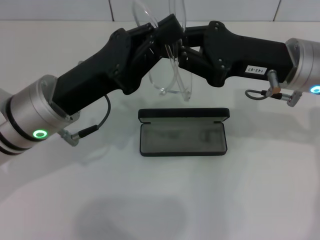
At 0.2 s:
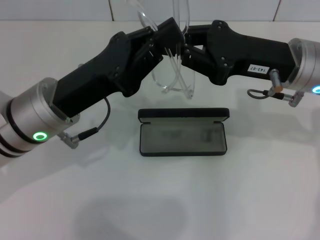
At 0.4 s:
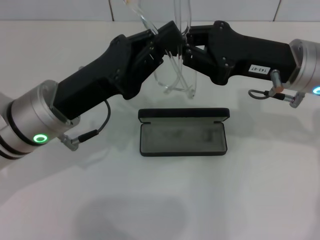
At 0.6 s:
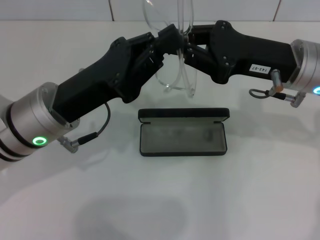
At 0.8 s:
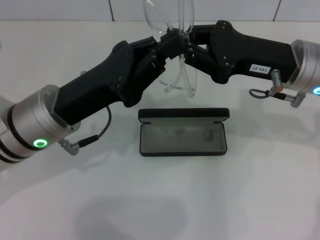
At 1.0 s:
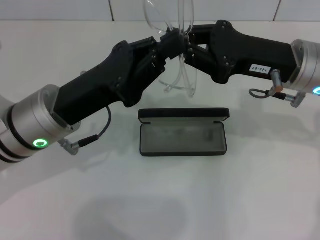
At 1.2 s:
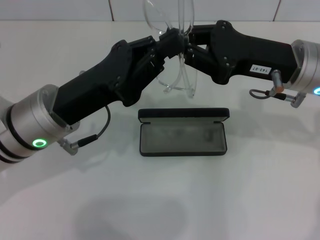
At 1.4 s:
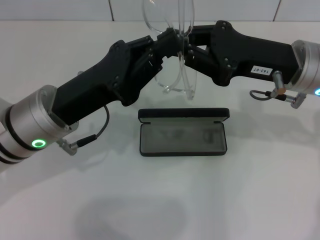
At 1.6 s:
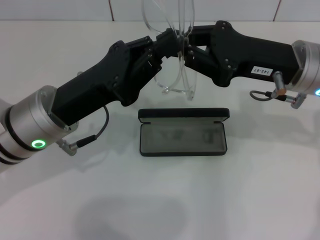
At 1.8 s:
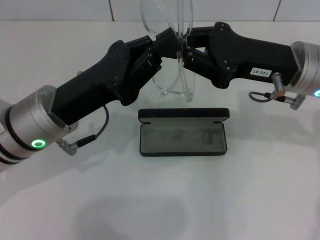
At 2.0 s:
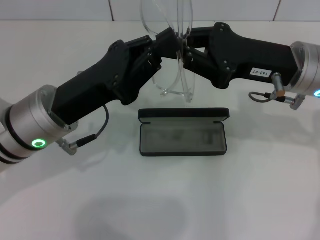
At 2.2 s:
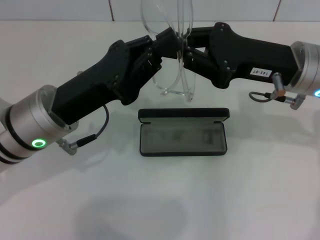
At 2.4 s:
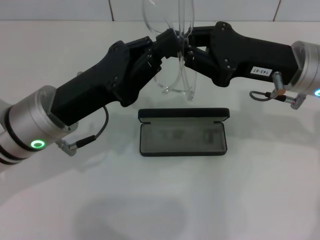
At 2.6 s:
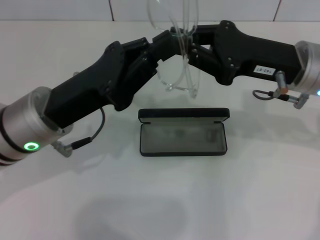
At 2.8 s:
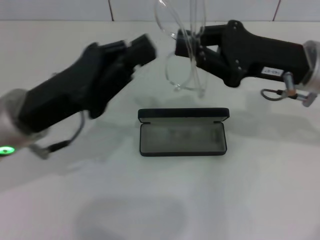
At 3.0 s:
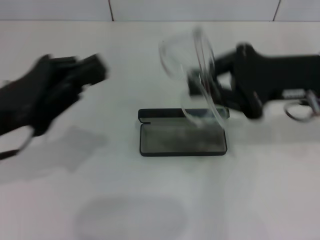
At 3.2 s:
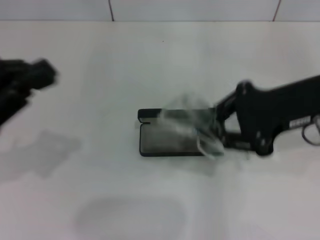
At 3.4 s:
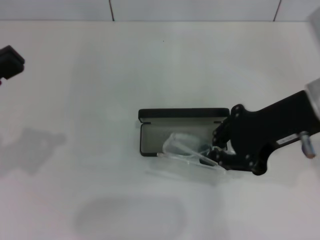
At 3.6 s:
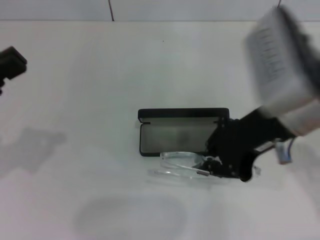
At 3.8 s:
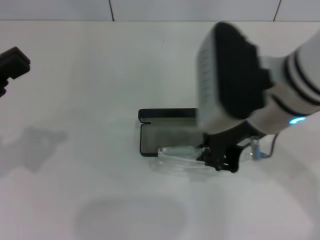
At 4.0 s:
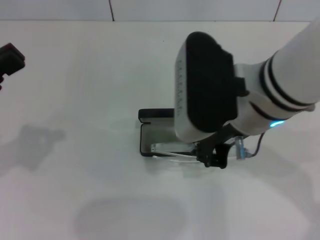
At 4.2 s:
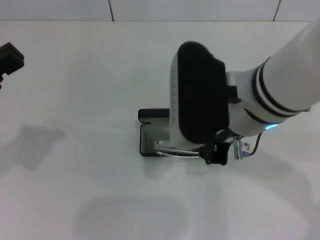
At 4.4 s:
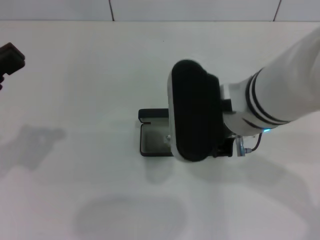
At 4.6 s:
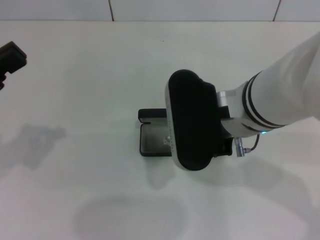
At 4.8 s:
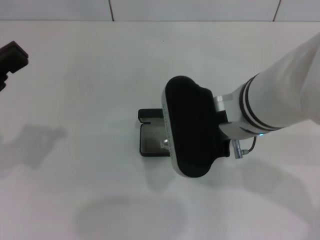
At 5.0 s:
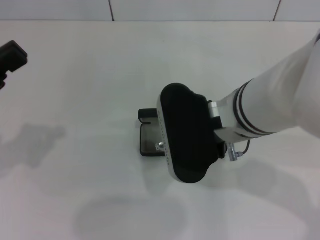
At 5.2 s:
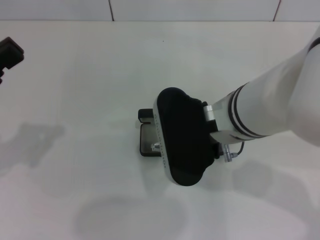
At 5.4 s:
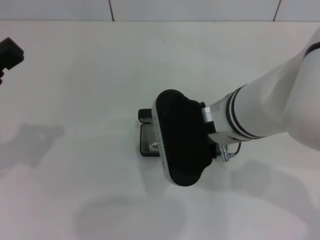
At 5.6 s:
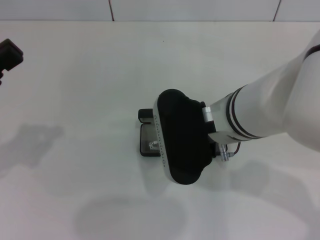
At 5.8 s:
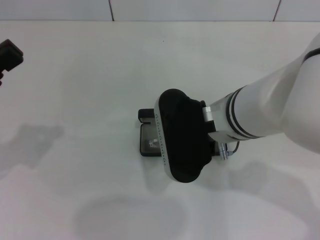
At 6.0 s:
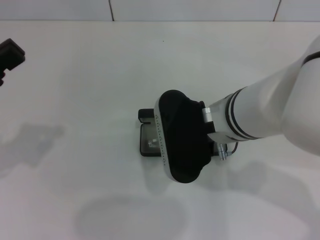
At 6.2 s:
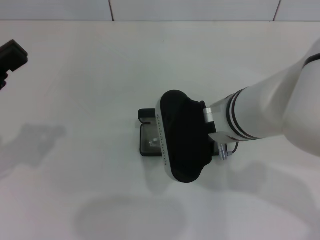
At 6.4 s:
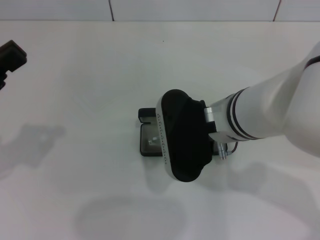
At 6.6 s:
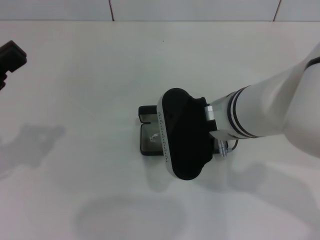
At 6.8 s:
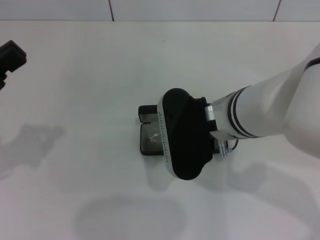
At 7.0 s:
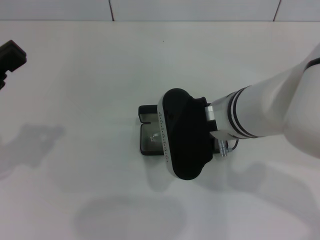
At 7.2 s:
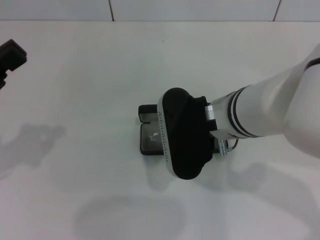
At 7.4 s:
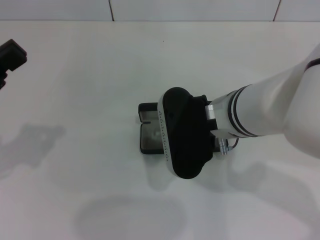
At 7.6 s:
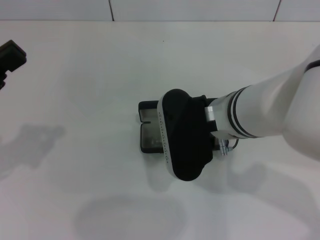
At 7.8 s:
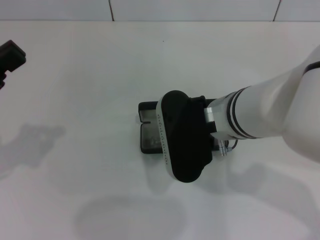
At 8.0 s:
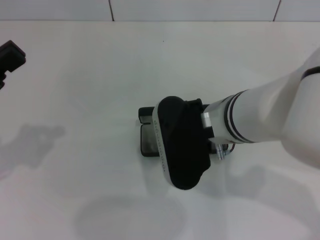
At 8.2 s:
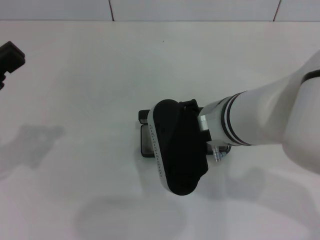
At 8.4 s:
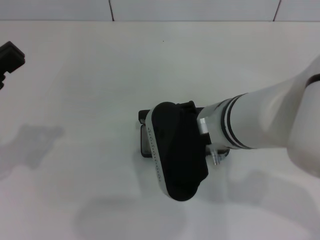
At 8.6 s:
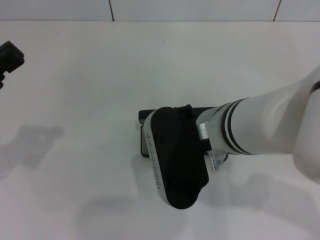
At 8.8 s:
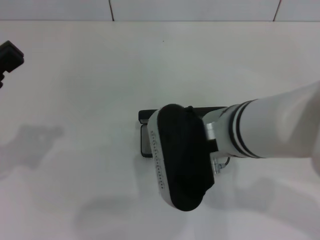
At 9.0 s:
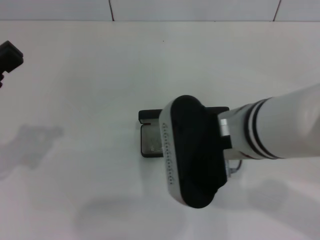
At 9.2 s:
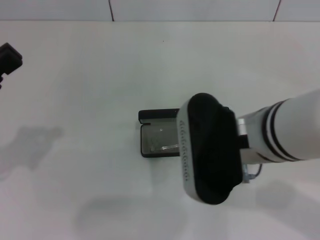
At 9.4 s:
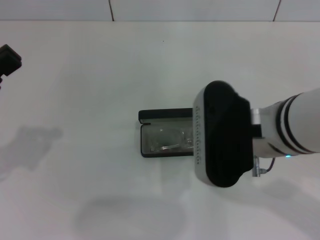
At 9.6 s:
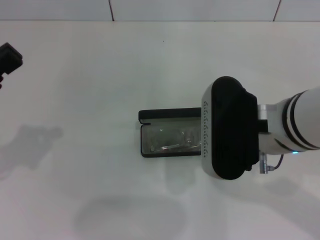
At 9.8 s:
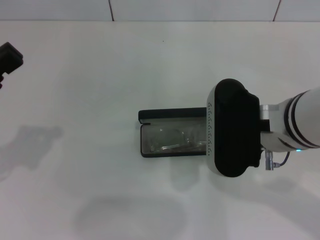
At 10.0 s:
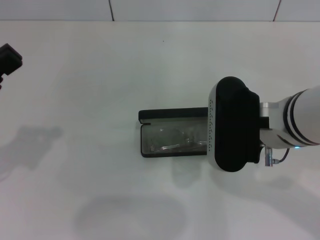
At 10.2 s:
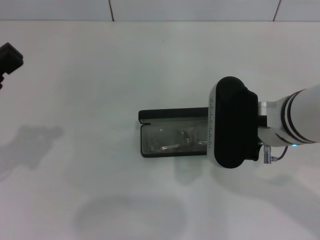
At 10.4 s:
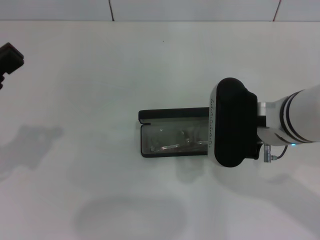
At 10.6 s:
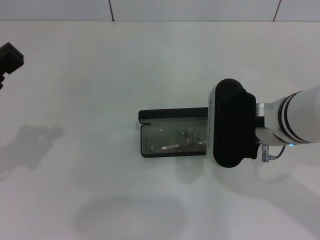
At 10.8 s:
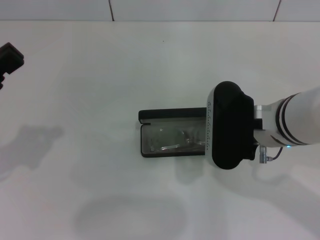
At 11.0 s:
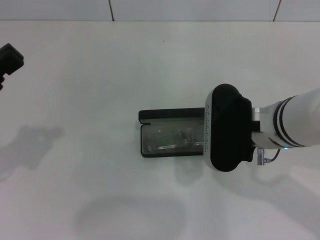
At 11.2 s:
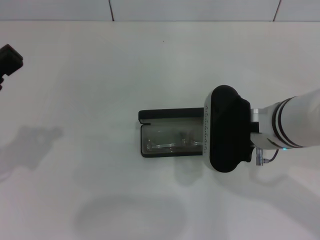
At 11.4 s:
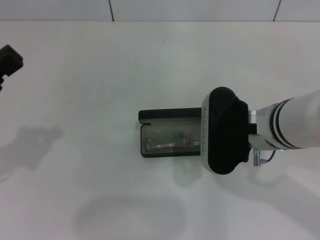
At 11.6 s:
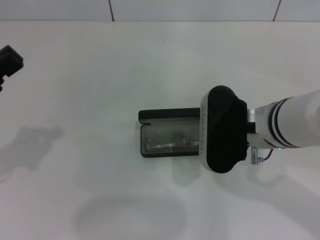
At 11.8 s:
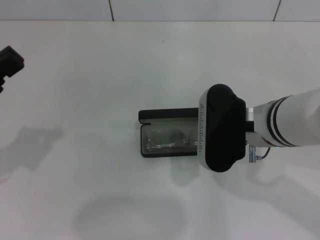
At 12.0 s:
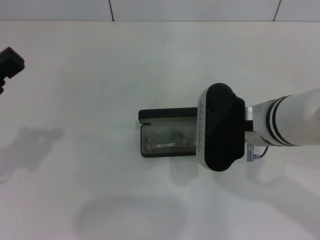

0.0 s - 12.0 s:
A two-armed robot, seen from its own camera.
Step, 0.0 s - 2.4 s: Fold the frame with your left hand.
0.0 s - 1.6 s: The two grippers keep their place.
1.6 s - 3.0 s: The left gripper goes approximately 10 cm to the left.
3.0 s - 4.4 s: The left gripper shifts roughly 5 cm to the left. The right gripper travels to the left by approximately 15 cm.
4.4 s - 6.0 s: There are only small adjustments of the grippers.
6.0 s - 7.6 s: Neither gripper changes place.
7.6 s - 9.0 s: The right gripper changes place by approximately 5 cm.
9.0 s - 10.4 s: The right gripper heads to the right, covering approximately 5 cm, and closes its fingers.
10.4 s - 12.0 s: The grippers stay close to where they were, moving slightly.

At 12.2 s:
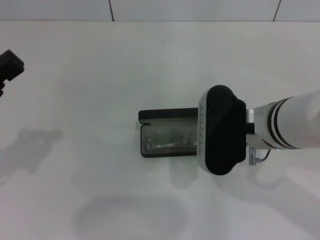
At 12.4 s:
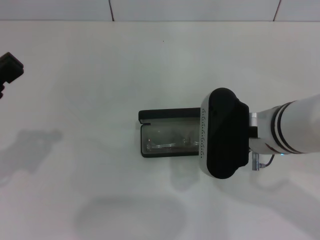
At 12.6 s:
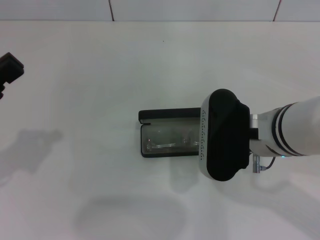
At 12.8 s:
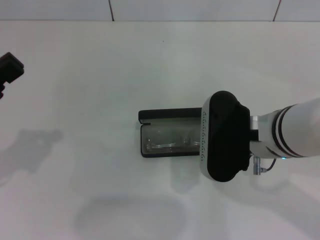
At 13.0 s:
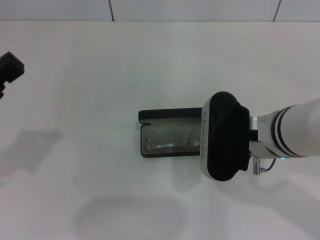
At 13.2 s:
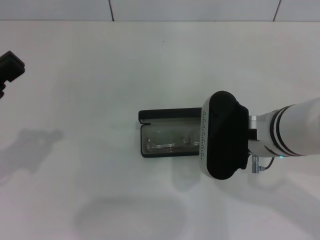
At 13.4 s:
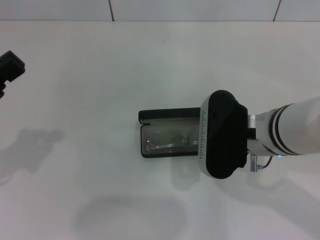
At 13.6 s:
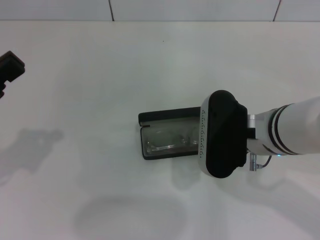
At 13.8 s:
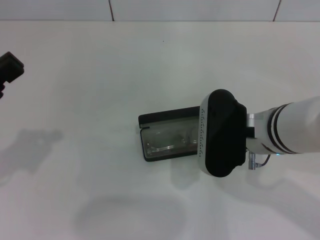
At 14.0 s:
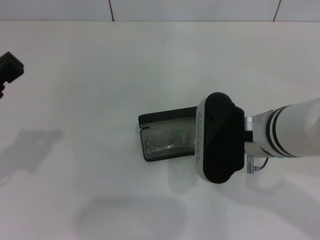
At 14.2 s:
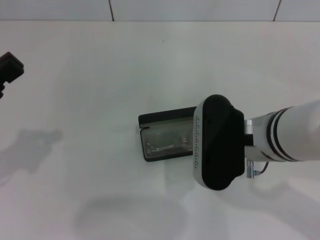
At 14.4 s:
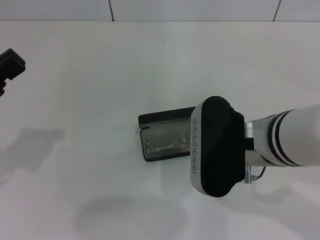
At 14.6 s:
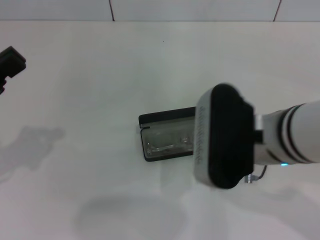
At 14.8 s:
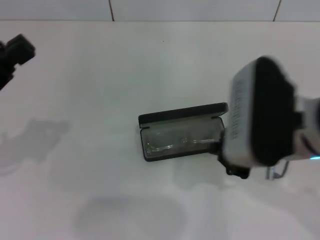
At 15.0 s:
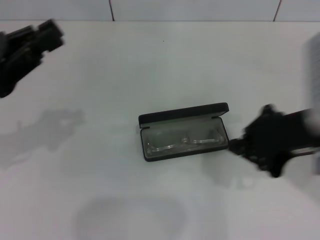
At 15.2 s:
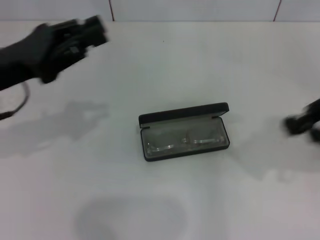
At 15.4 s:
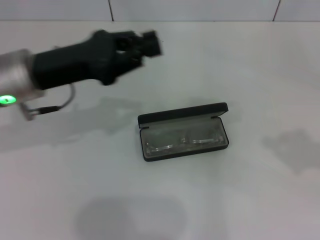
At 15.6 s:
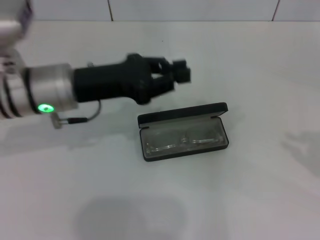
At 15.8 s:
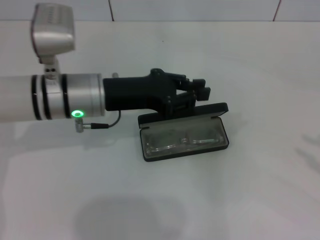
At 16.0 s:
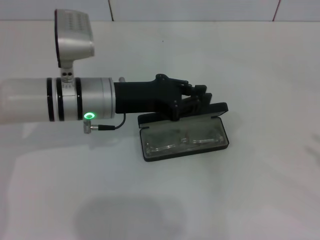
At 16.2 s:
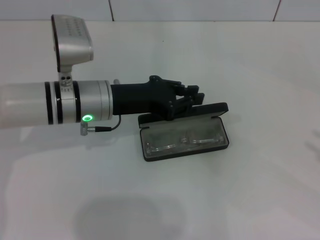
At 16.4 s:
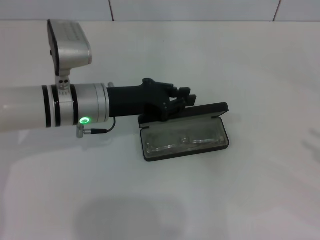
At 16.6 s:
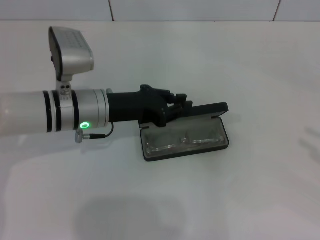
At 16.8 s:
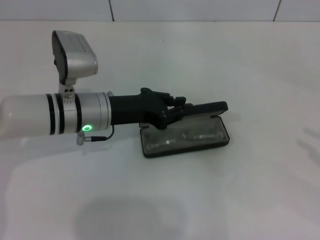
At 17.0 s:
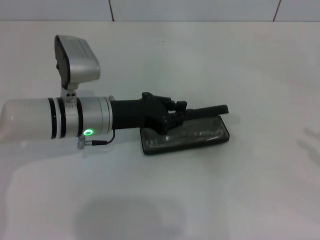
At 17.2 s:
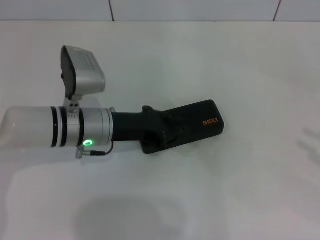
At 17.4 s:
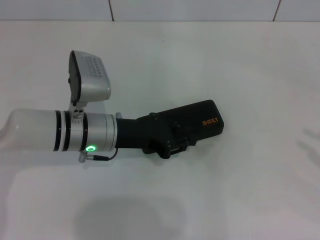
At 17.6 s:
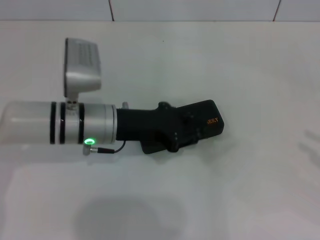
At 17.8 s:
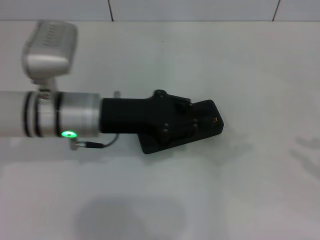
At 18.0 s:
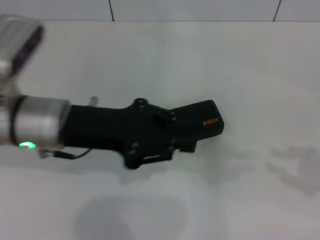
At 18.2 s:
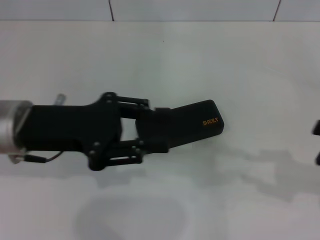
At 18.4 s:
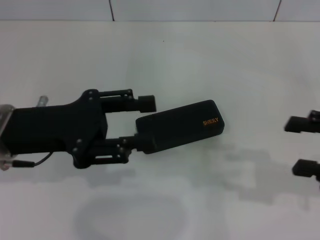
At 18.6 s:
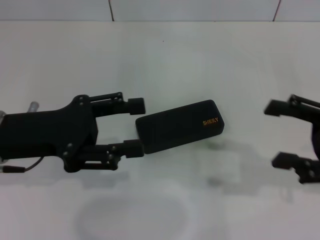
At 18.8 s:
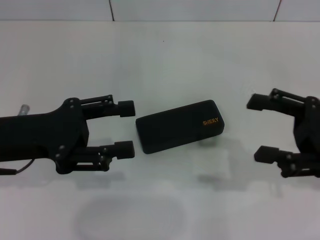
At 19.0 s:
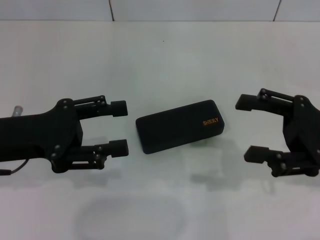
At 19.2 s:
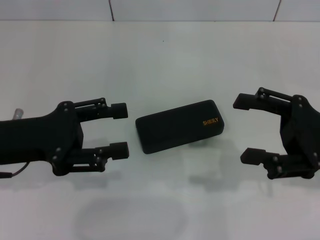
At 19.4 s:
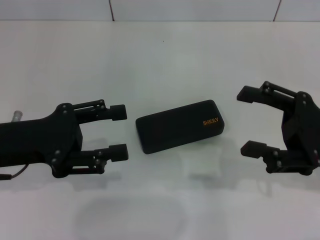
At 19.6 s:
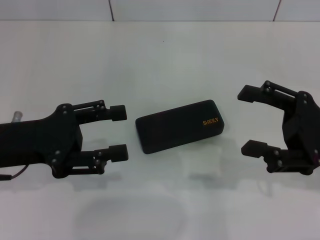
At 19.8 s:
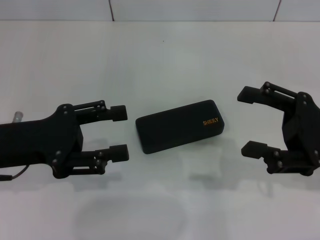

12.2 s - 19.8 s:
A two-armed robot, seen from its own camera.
Step, 12.2 s - 14.6 s: Put the glasses into the case with your right hand.
Step, 15.0 s - 17.6 s: Close the glasses case with your left hand.
12.2 s - 13.8 s: Both grippers stay put.
13.8 s - 15.2 s: The left gripper goes about 10 cm forward and to the right. The right gripper is displaced to the right and upward by some 20 cm.
15.2 s - 16.8 s: The right gripper heads to the right, covering approximately 15 cm, and opens its fingers; the left gripper is displaced to the right and downward by about 15 cm.
16.8 s - 18.2 s: The left gripper moves upward, backward and to the left, roughly 10 cm. Meanwhile the right gripper is displaced to the left by some 10 cm.
18.2 s - 19.8 s: The left gripper changes place by about 5 cm, and opens up. The right gripper travels to the left by some 10 cm, and opens its fingers.
